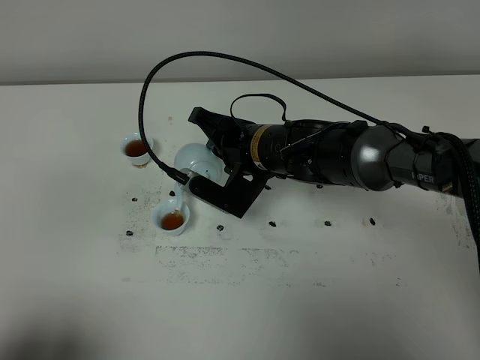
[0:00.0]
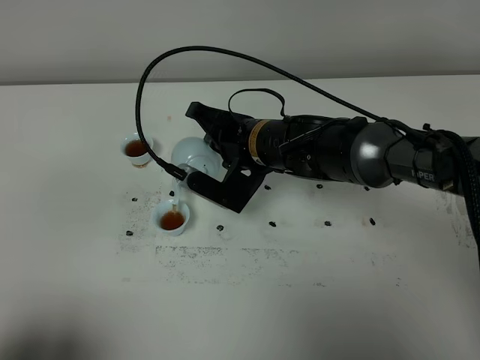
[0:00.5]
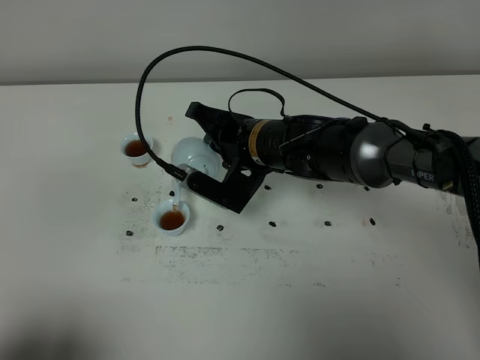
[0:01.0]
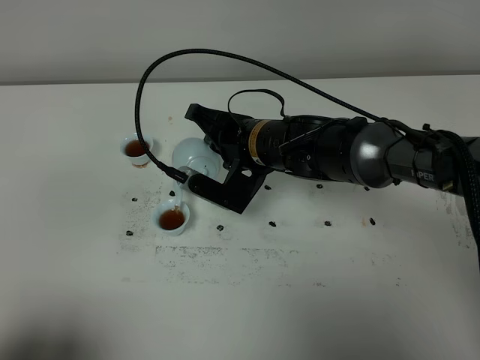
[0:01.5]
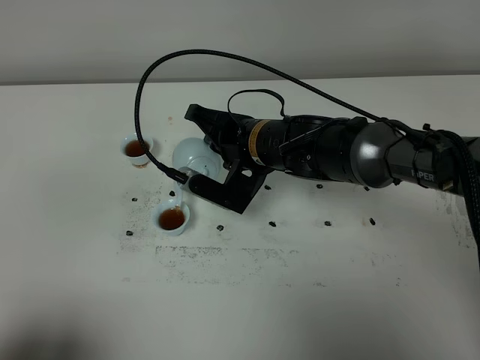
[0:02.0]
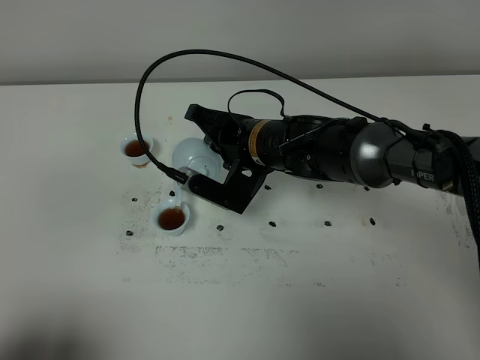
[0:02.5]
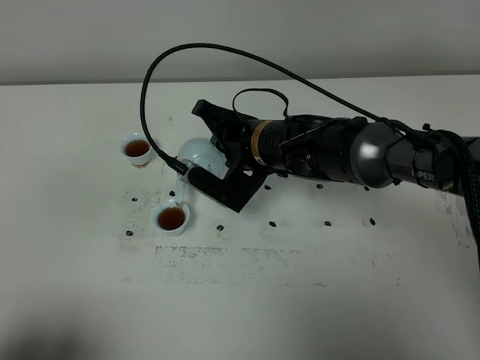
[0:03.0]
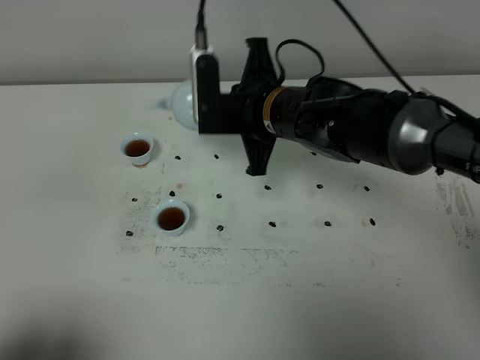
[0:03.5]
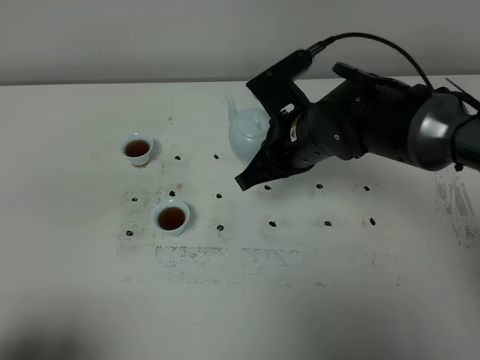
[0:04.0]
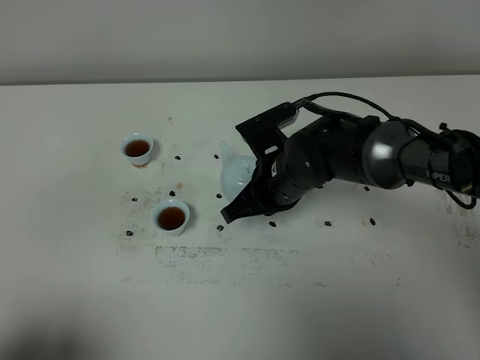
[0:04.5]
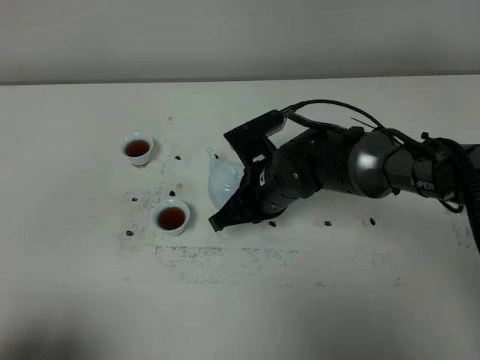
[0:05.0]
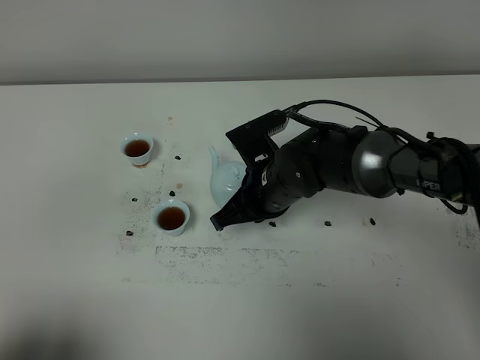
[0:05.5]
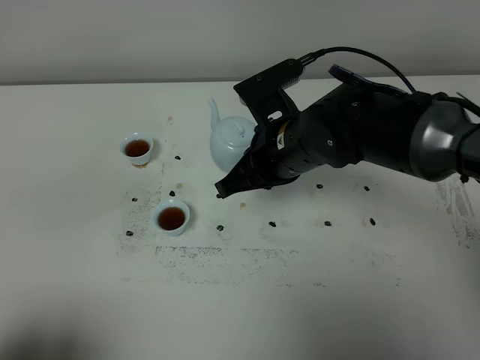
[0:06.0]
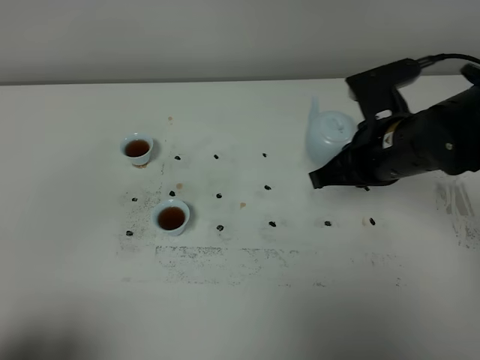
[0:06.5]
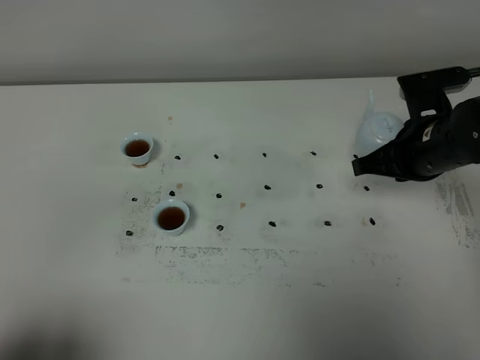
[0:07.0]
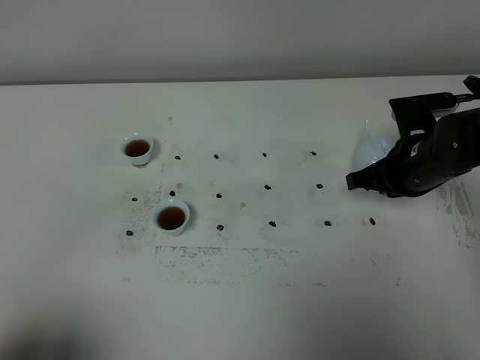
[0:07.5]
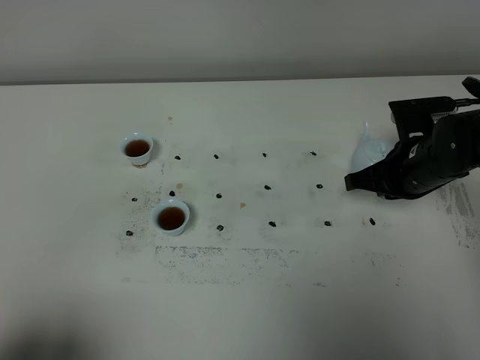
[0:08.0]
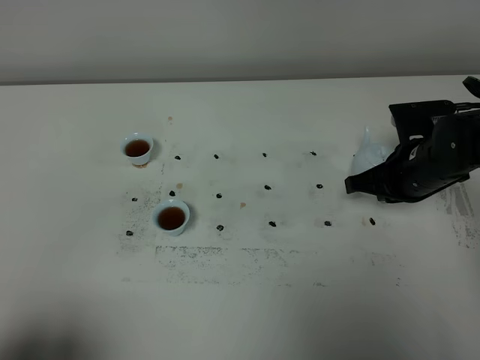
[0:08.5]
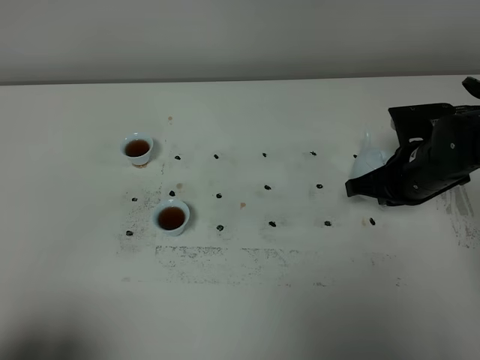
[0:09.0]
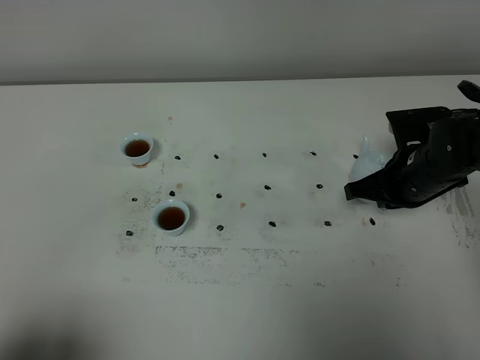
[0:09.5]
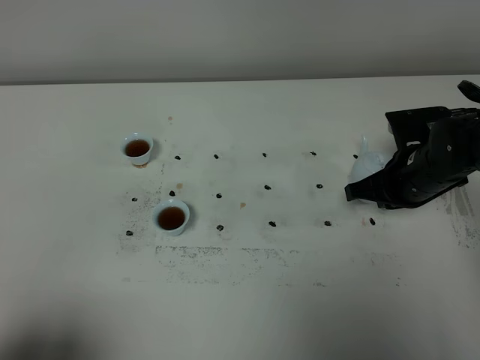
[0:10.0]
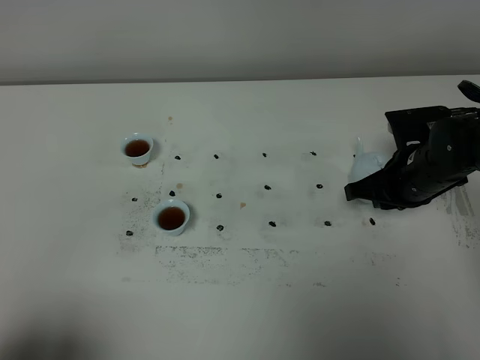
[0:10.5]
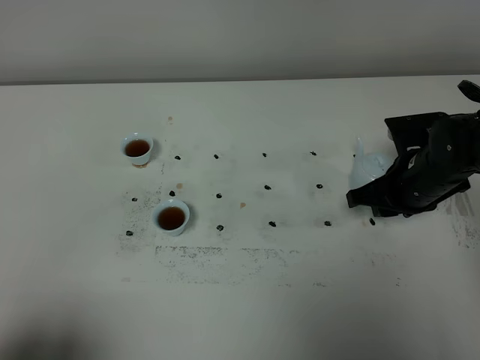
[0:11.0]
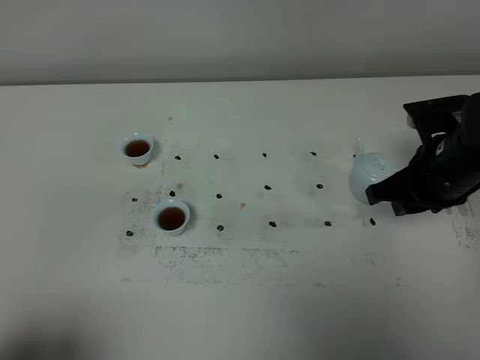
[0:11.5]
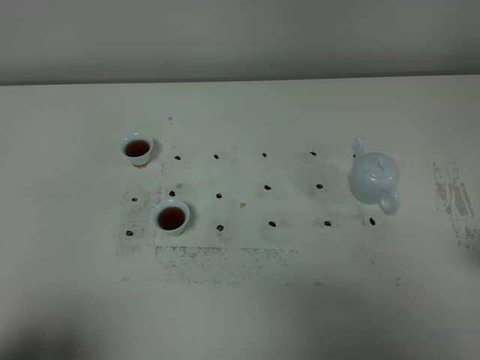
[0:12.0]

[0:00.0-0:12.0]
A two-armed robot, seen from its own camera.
Task of the whole recording: grasp the blue porcelain teapot and pour the tea into the two blue porcelain teacups one by one, put the blue porcelain teapot back in its original place.
Step, 0:00.0 to 0:03.0: Pour tea into the teacup with the right gripper.
0:00.0 to 0:02.0: Both grippers stay put.
0:02.0 to 0:04.0: The right gripper changes place by roughly 5 cm.
0:04.0 to 0:06.0: The right gripper reaches some 5 cm downward, then returns.
0:06.0 to 0:08.0: The right gripper goes some 20 cm to the right and downward.
0:08.0 to 0:10.0: Neither gripper changes place.
0:10.0 to 0:12.0: The right gripper is displaced backward, upward and to the right by approximately 20 cm, and opens its fingers.
